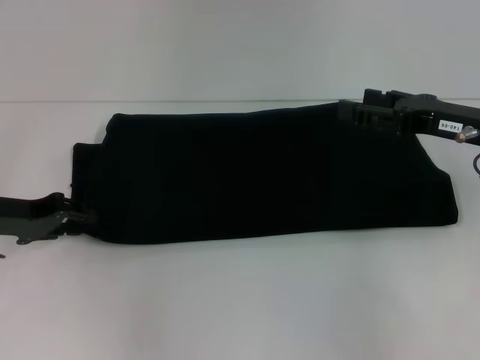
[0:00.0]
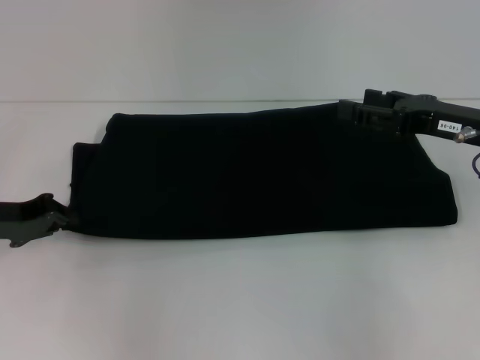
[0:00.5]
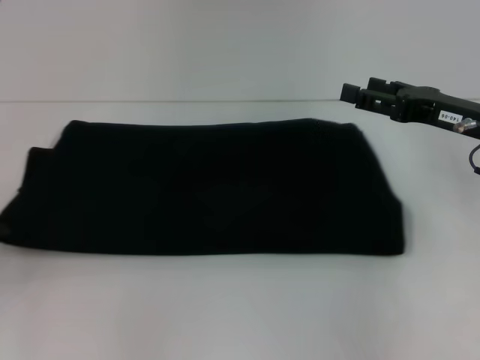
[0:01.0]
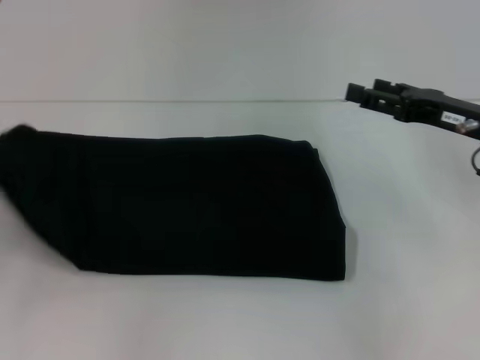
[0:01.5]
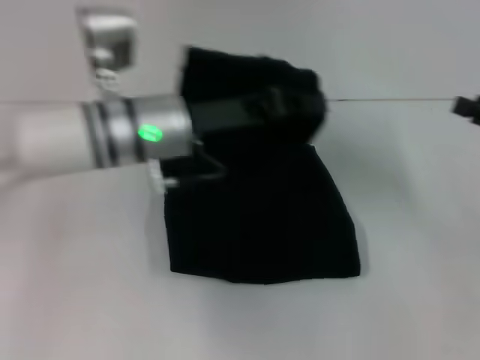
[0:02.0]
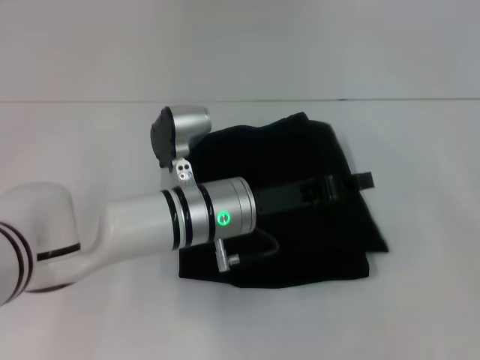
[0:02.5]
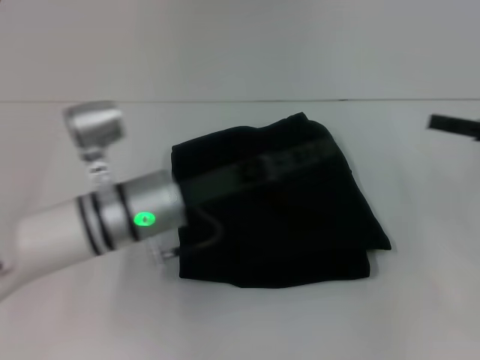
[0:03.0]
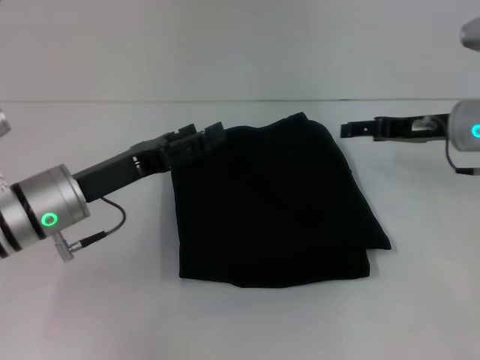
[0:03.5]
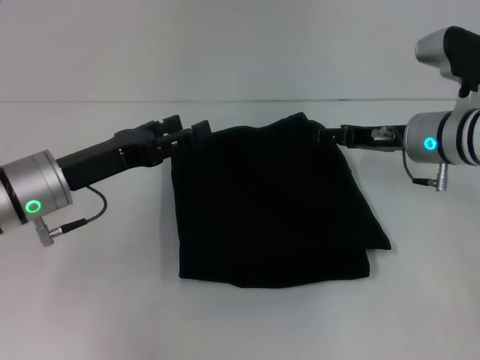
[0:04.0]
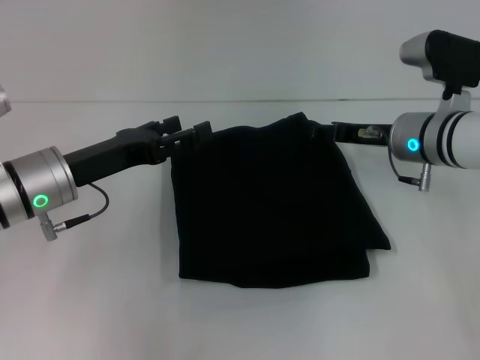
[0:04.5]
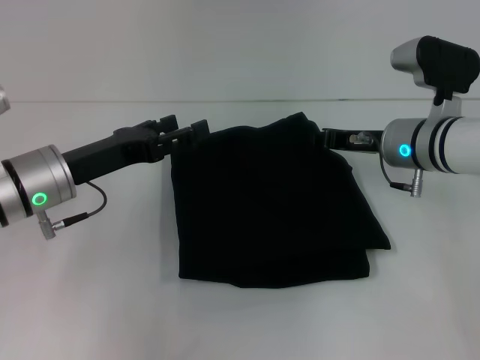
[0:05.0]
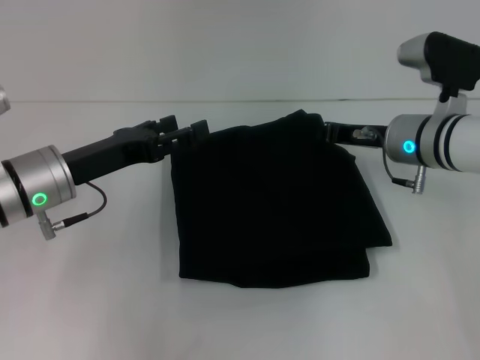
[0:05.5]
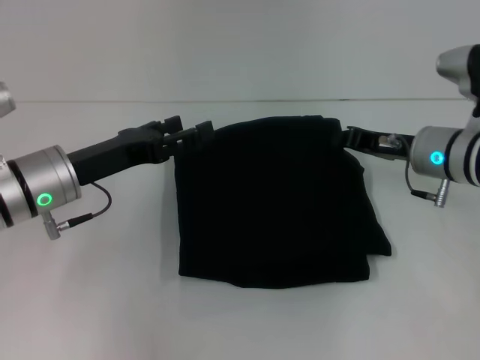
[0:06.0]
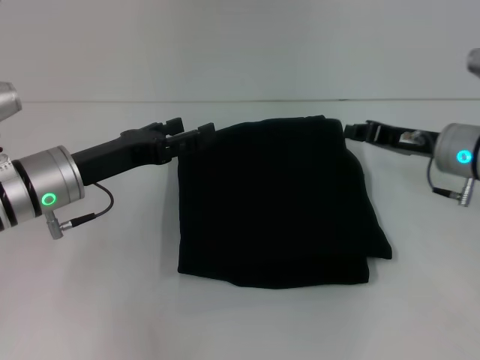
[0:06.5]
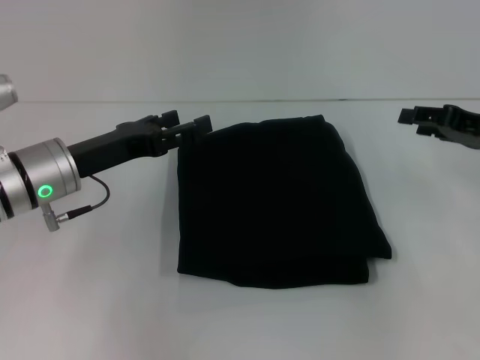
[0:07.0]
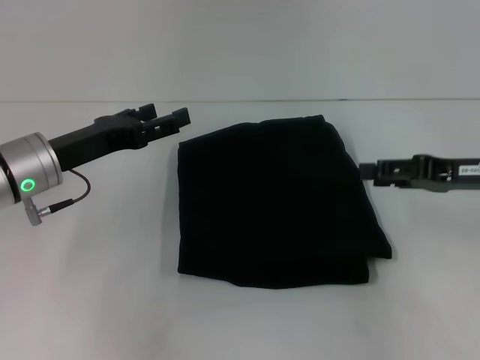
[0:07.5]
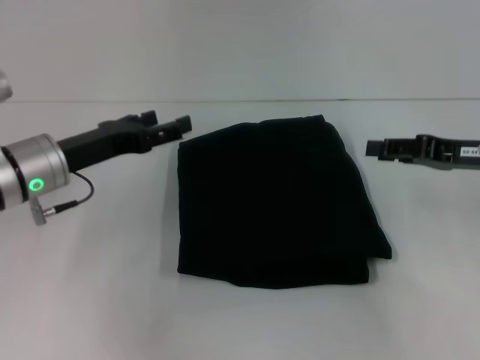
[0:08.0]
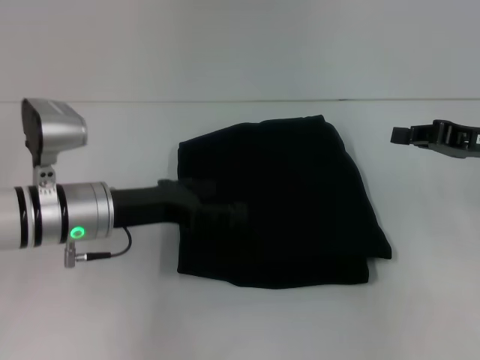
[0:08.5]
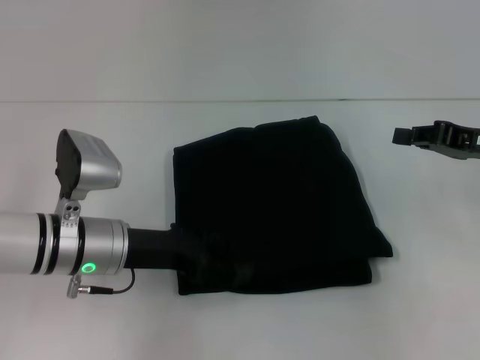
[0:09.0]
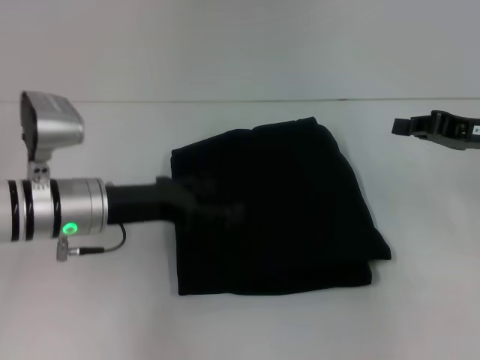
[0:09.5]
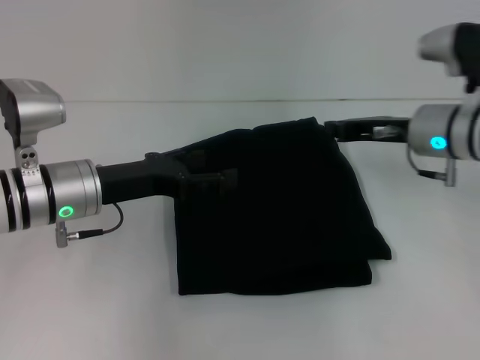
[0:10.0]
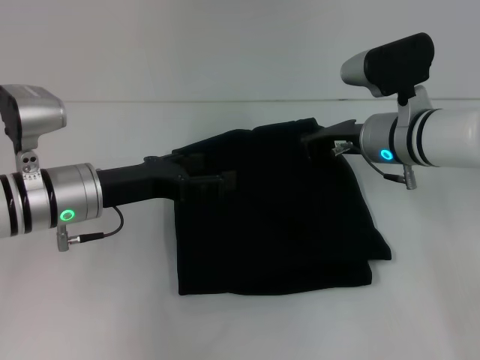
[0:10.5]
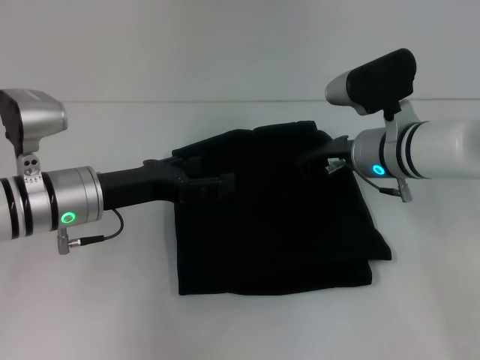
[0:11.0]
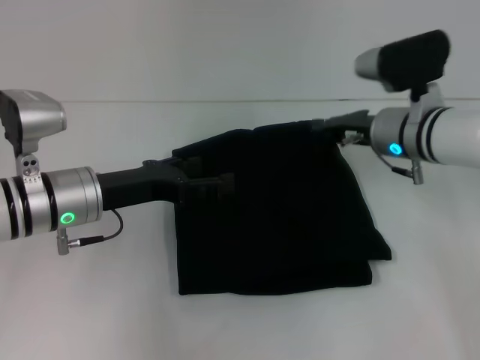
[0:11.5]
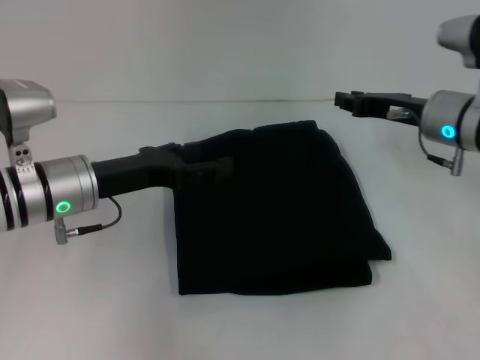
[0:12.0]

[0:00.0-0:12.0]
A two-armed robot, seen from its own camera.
Step, 0:00.0 to 0:02.0: Fold the clothes with your left hand.
0:00.0 to 0:02.0: The left gripper shifts approximately 20 cm to the right, and closes up. Meanwhile the right gripper travels to the right by approximately 10 cm.
0:02.0 to 0:04.0: The right gripper shifts approximately 20 cm to the left and forward; the left gripper moves to the left and downward, about 10 cm, and opens.
0:04.0 to 0:06.0: The right gripper closes.
0:06.0 to 0:08.0: The right gripper travels to the right by about 10 cm, and opens its fingers.
0:08.0 to 0:10.0: The right gripper moves to the left and forward, approximately 10 cm, and closes.
0:10.0 to 0:12.0: The grippers make only small movements.

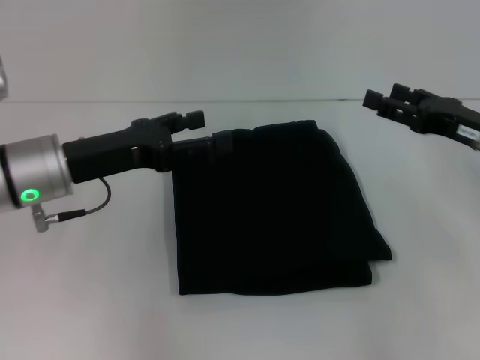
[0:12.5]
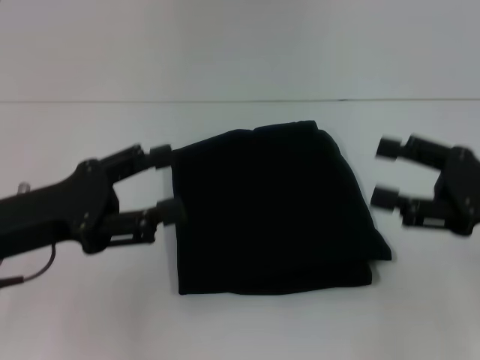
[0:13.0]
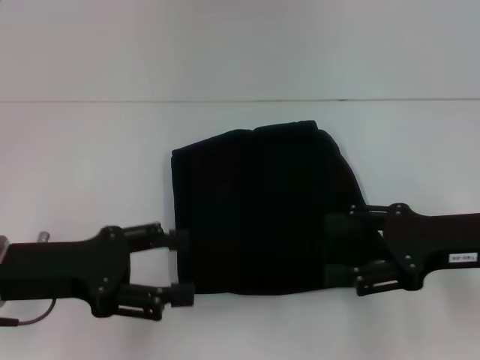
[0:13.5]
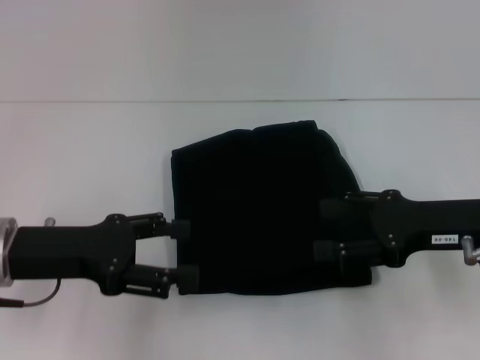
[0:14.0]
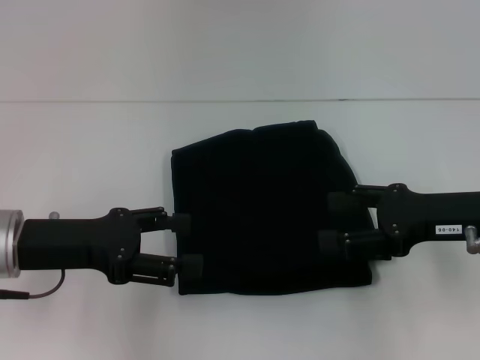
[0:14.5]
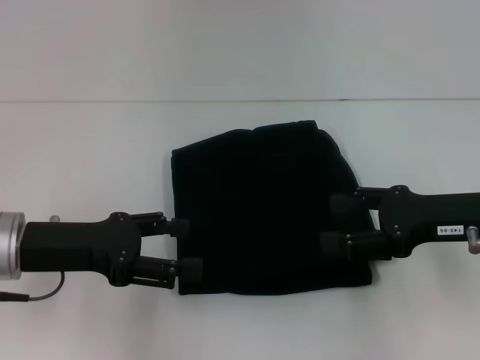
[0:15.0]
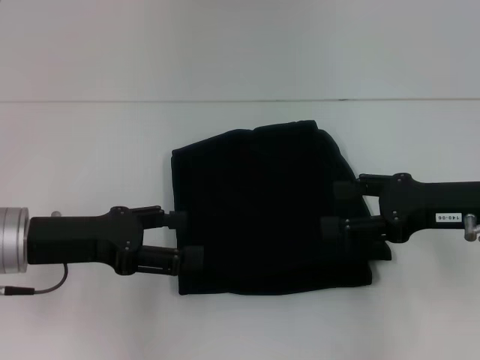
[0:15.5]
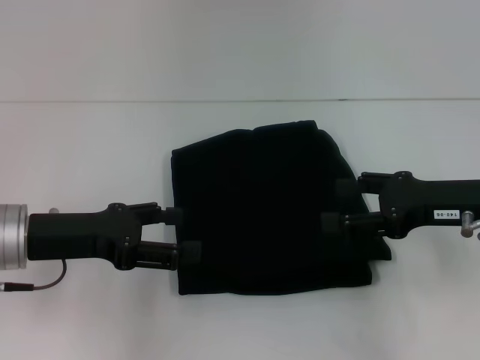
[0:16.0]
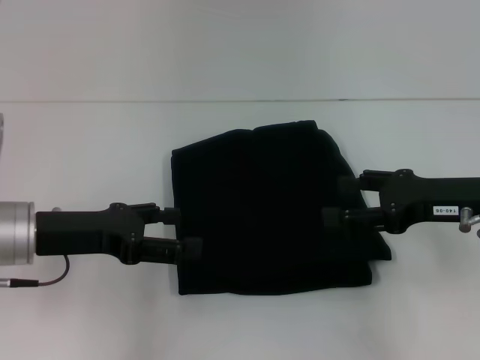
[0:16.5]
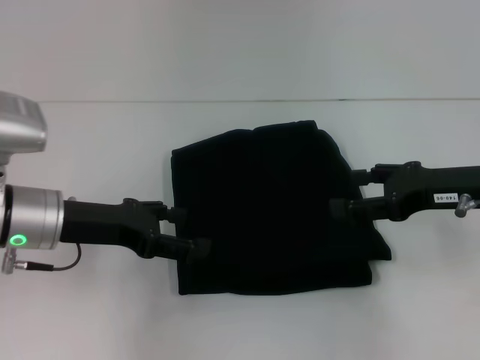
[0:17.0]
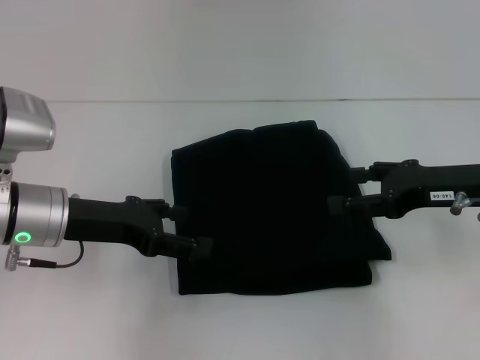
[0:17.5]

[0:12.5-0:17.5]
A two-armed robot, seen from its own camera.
0:12.5 to 0:15.0: The left gripper travels backward by some 5 cm.
0:15.0 to 0:17.5: The grippers stay close to where they were, moving slightly.

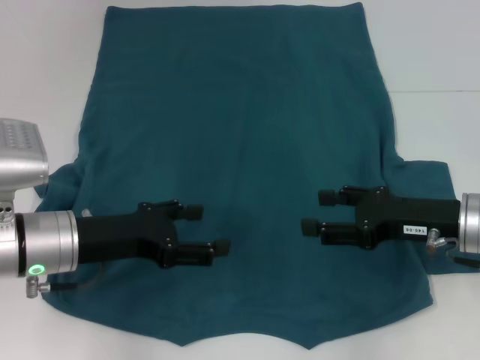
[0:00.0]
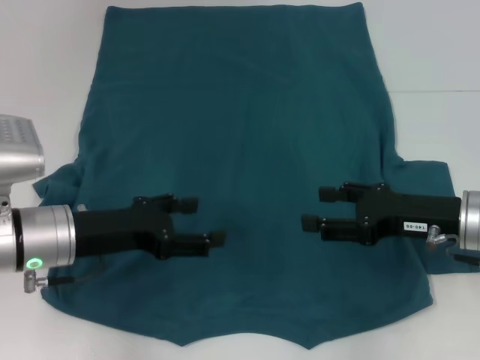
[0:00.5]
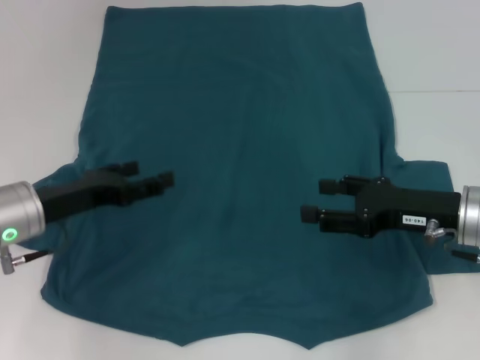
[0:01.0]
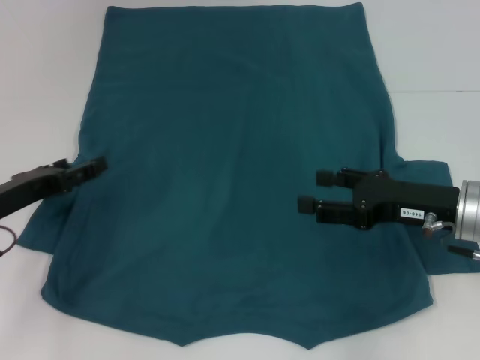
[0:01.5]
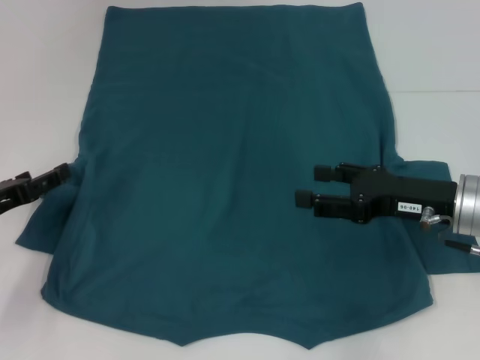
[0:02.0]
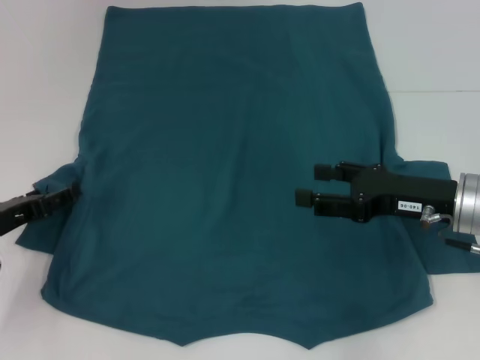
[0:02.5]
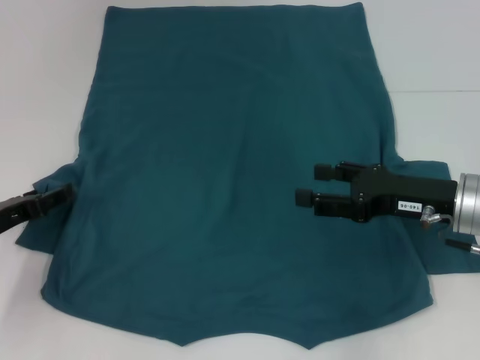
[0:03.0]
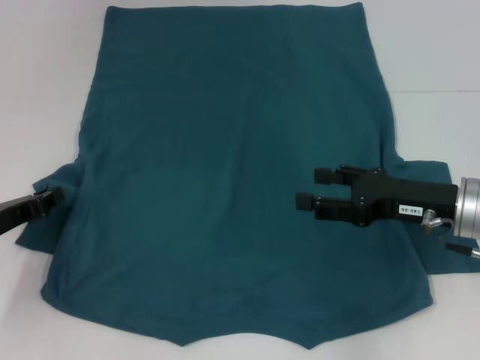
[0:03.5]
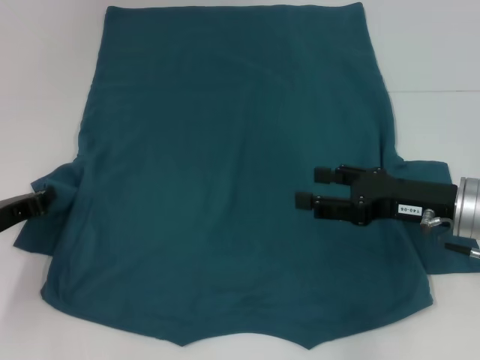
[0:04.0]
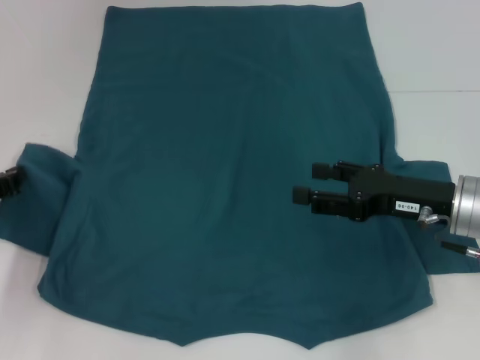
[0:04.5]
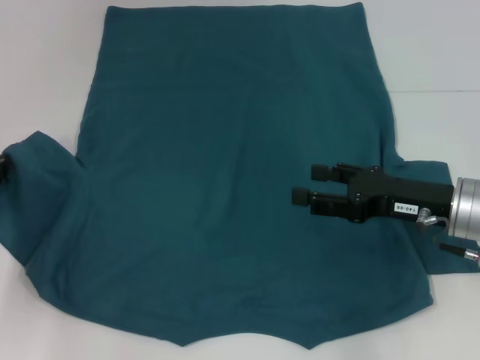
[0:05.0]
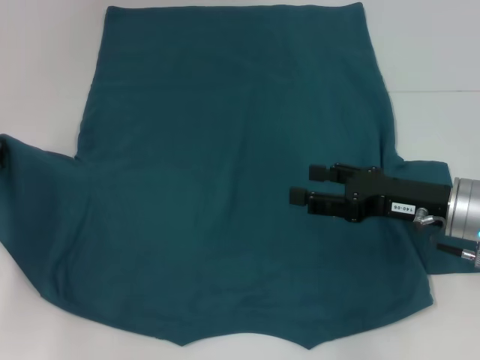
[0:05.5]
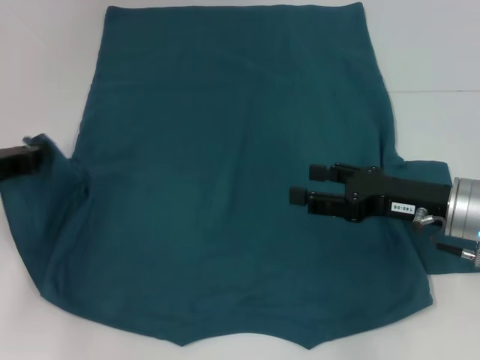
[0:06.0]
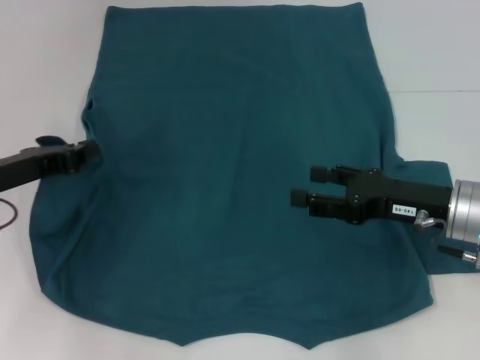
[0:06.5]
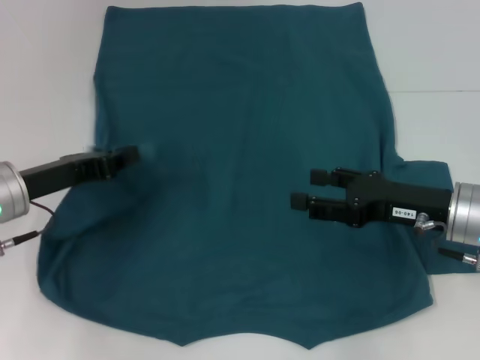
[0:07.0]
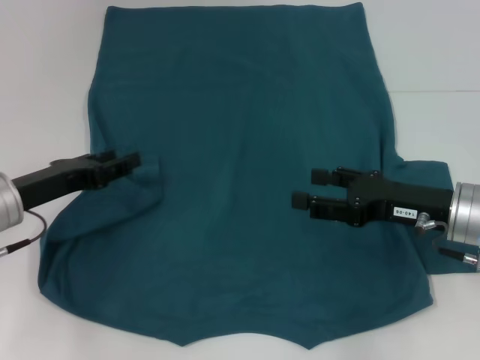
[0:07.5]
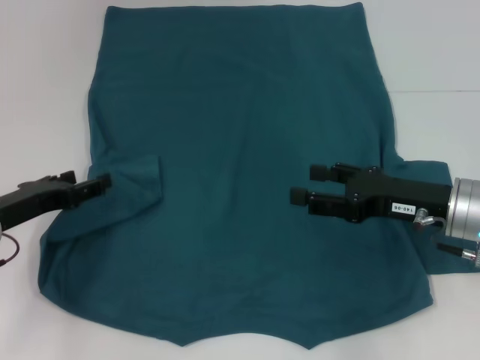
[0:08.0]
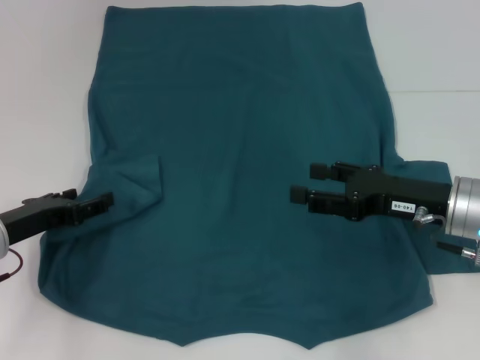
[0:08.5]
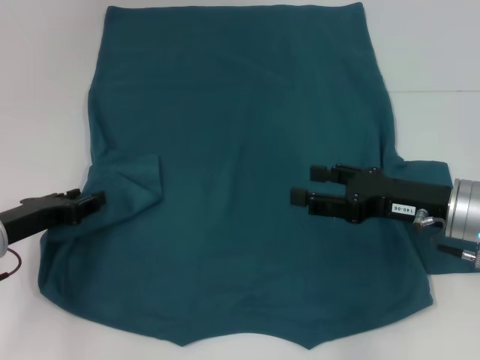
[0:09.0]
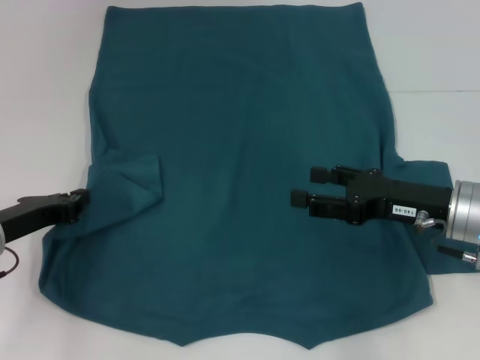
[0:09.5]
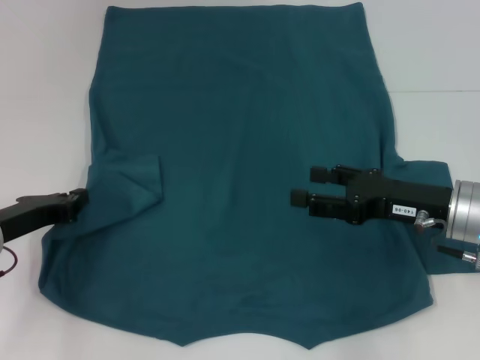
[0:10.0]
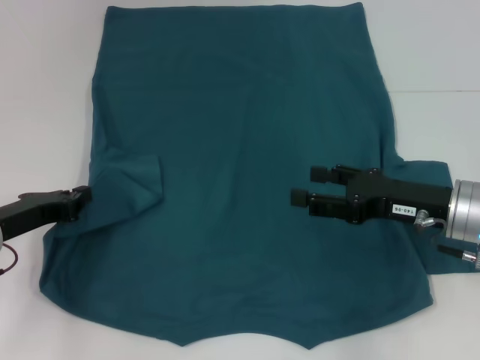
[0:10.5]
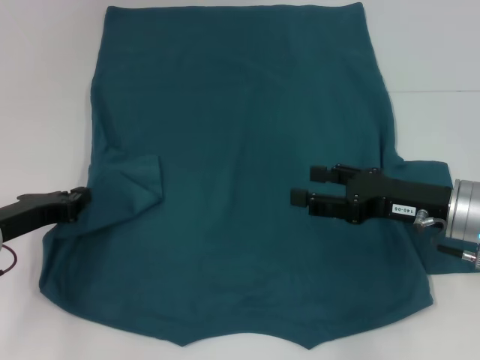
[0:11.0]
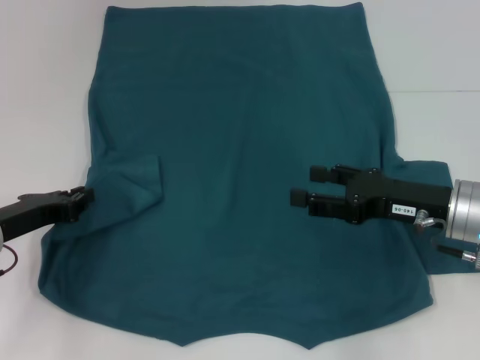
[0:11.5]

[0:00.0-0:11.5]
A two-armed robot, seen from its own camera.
0:00.0 to 0:02.0: The left gripper is displaced to the left by about 10 cm.
0:02.0 to 0:04.0: The left gripper closes its fingers.
0:04.0 to 0:06.0: The left gripper changes place by roughly 5 cm.
0:06.0 to 0:07.5: The left gripper shifts some 5 cm to the right, and opens.
0:07.5 to 0:09.5: The left gripper opens, then closes once more.
0:09.5 to 0:11.5: Both grippers stay about where they are.
